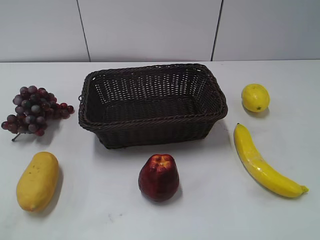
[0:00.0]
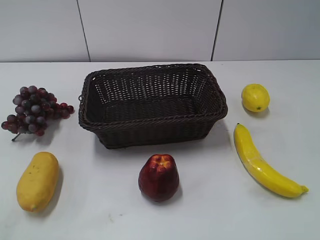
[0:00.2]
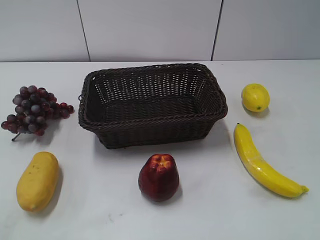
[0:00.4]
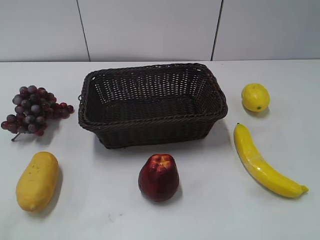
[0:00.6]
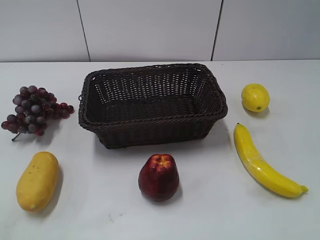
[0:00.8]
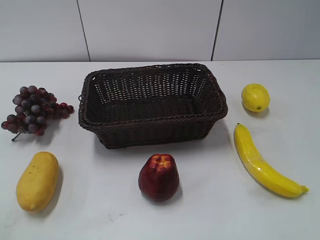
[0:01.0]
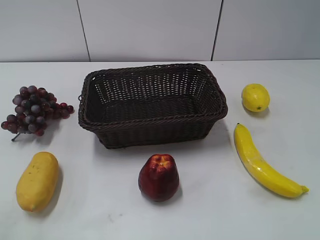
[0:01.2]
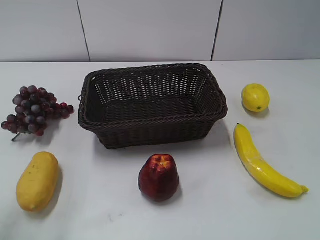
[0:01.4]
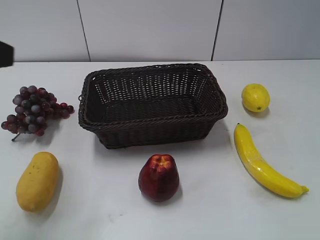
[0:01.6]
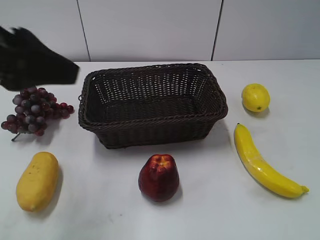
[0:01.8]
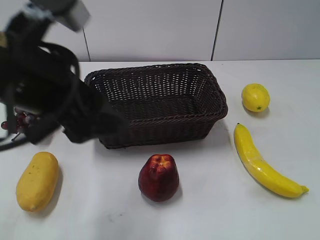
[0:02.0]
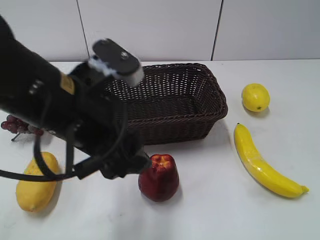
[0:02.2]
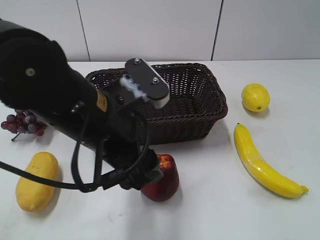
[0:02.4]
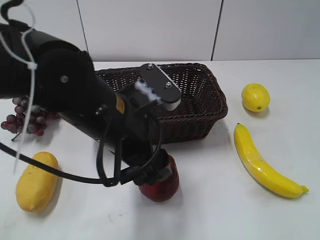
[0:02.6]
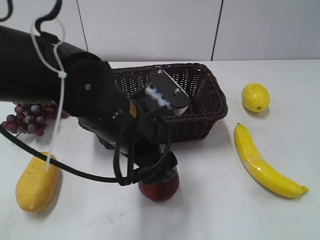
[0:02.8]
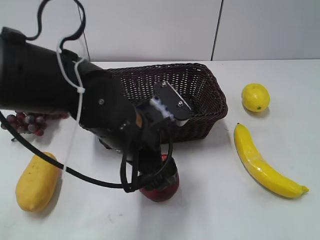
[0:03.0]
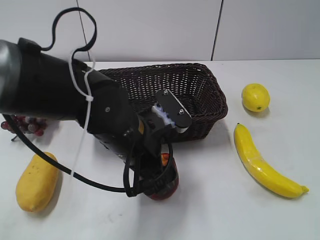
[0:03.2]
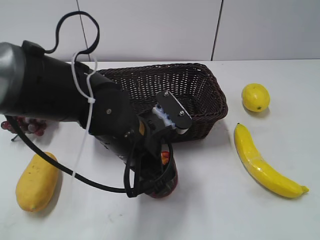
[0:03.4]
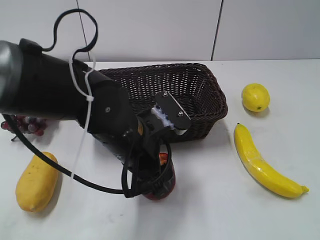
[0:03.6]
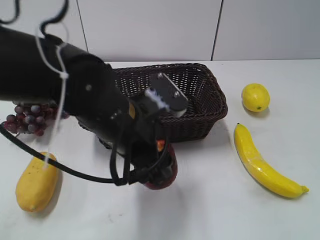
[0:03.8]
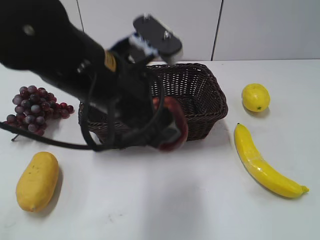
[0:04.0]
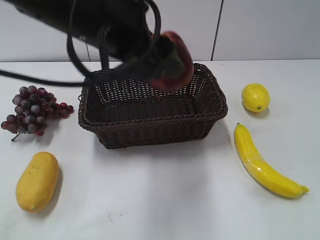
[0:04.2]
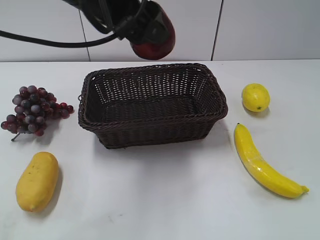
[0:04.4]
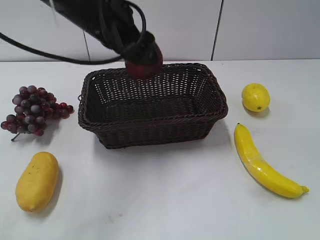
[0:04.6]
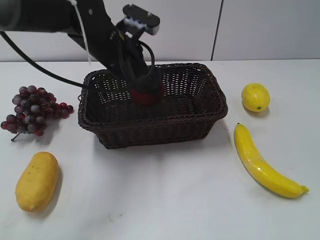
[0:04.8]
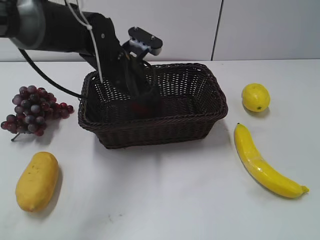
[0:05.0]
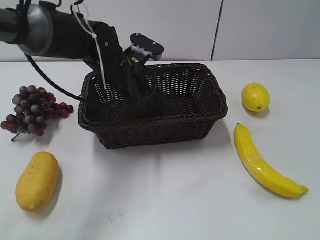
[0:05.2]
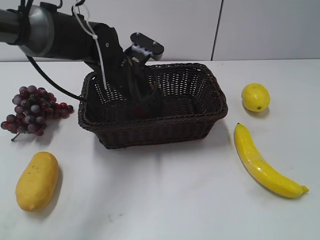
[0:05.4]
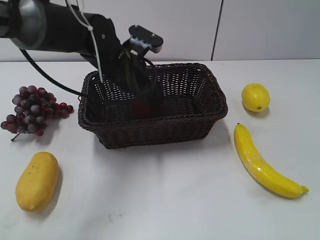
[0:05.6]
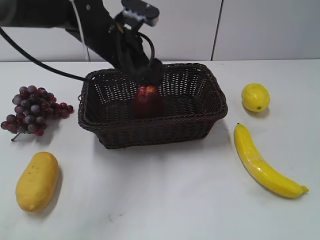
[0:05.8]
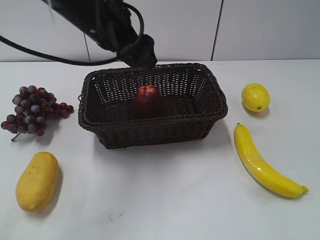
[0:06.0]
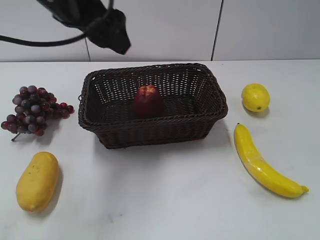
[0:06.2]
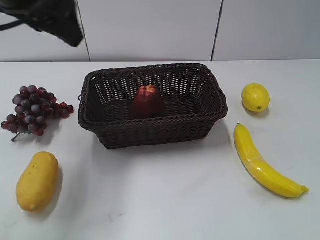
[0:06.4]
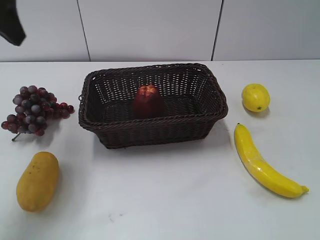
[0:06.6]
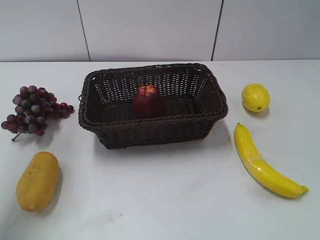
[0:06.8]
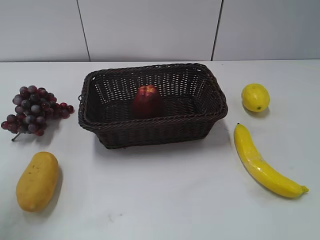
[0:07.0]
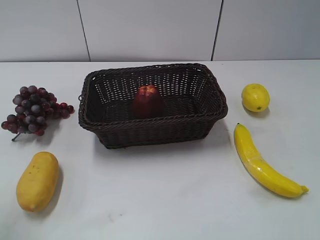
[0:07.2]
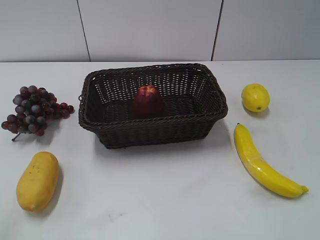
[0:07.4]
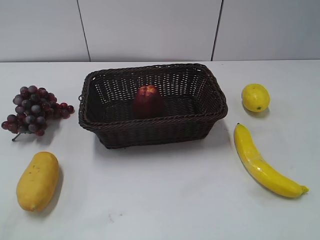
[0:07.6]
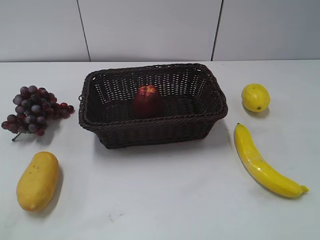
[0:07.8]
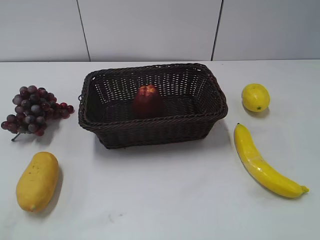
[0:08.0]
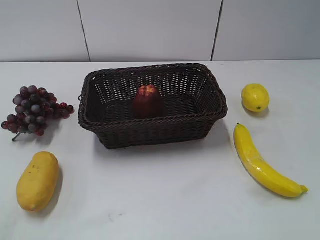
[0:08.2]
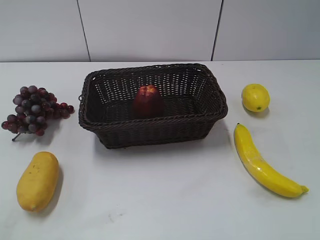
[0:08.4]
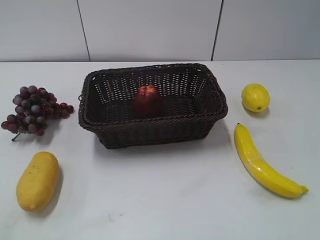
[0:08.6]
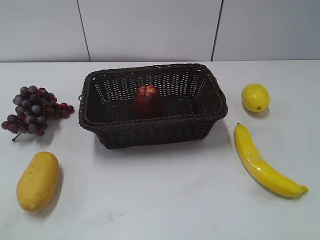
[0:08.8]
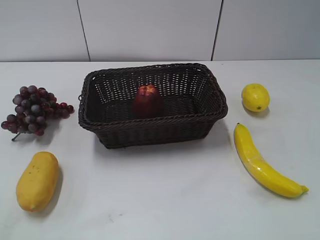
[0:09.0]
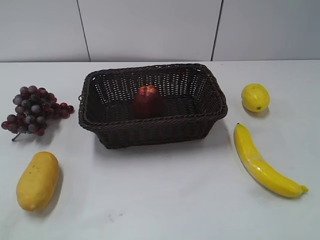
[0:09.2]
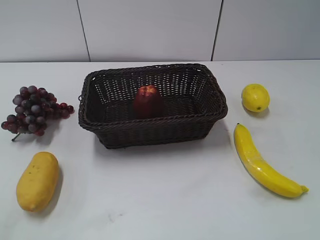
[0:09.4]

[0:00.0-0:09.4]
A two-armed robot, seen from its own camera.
Step, 0:01.6 to 0:03.4: Grasp the apple with left gripper.
Step, 0:03.6 to 0:05.4: Place the apple in the basket with left gripper.
0:01.6 to 0:03.2: The left gripper is displaced to the right and downward by about 30 cm, and opens its fingers.
0:03.2 to 0:04.8: The left gripper is displaced forward by approximately 15 cm, travels upward and back again, about 20 cm each way, and closes up.
0:04.8 to 0:06.2: The left gripper shifts about 15 cm upward, to the left and backward, and opens its fingers.
0:06.2 to 0:07.8: The left gripper goes roughly 35 cm backward and to the left, and closes its fingers.

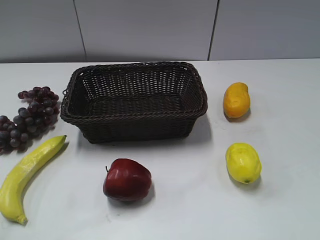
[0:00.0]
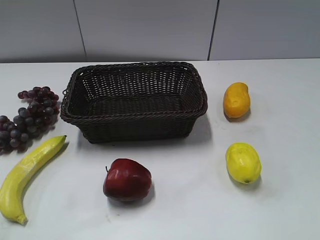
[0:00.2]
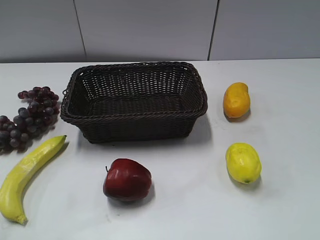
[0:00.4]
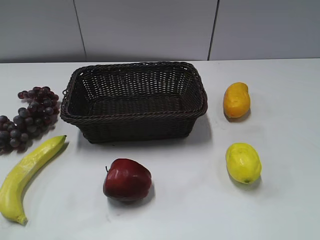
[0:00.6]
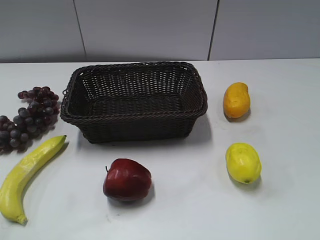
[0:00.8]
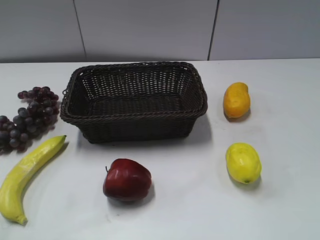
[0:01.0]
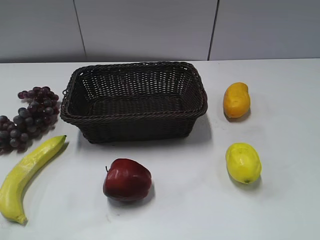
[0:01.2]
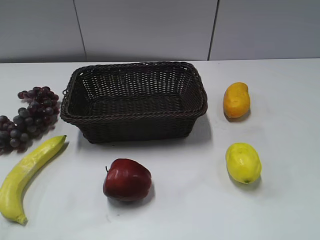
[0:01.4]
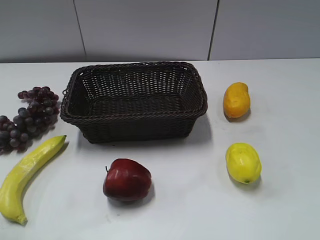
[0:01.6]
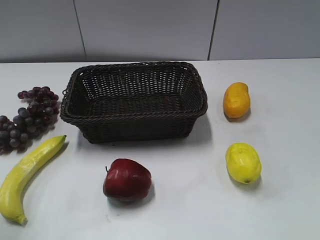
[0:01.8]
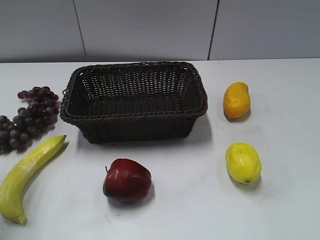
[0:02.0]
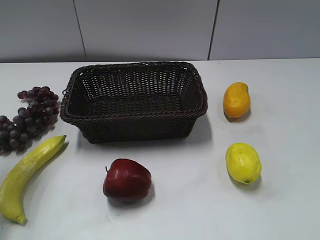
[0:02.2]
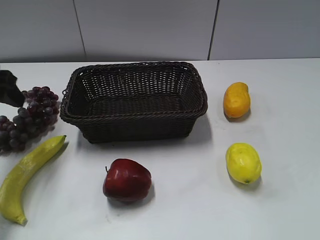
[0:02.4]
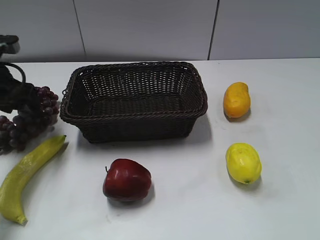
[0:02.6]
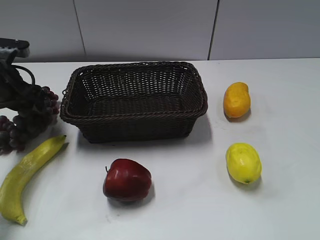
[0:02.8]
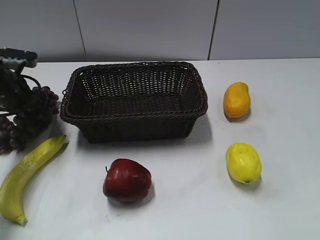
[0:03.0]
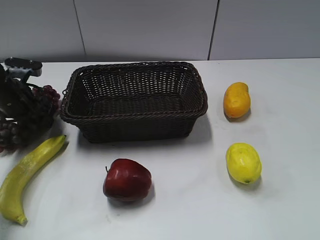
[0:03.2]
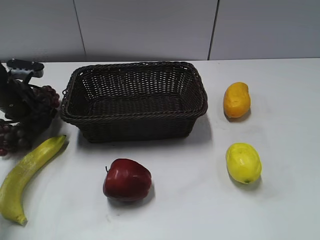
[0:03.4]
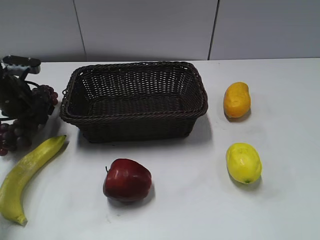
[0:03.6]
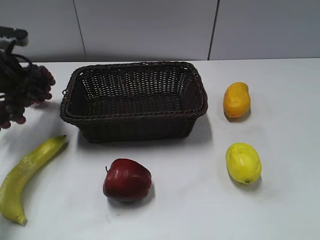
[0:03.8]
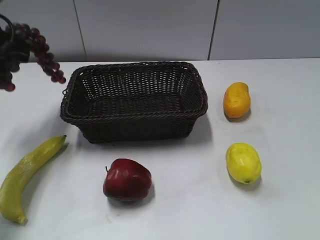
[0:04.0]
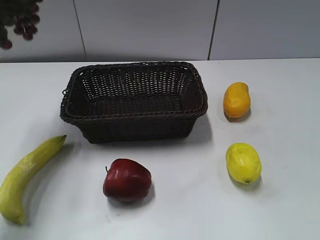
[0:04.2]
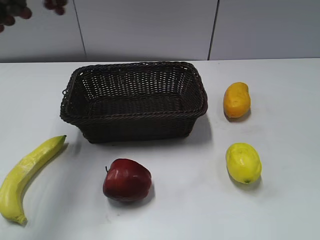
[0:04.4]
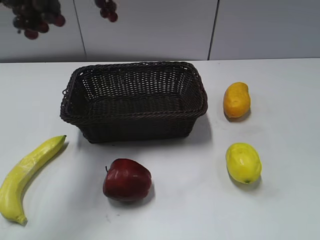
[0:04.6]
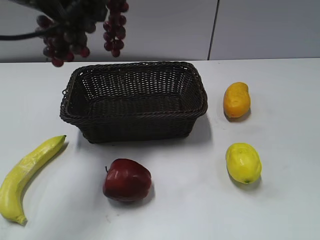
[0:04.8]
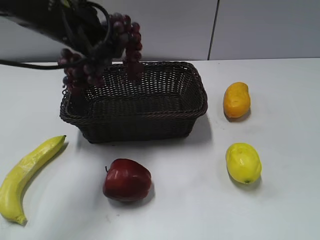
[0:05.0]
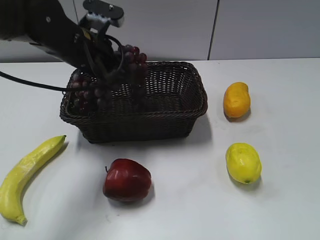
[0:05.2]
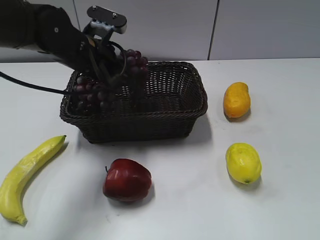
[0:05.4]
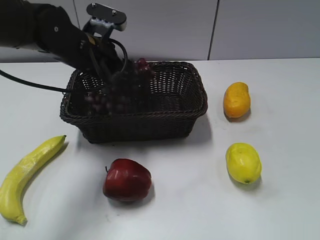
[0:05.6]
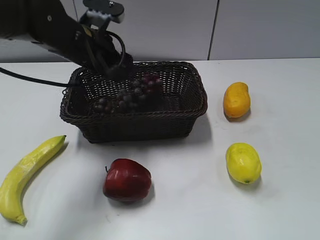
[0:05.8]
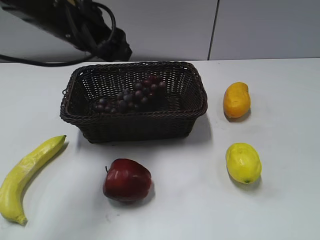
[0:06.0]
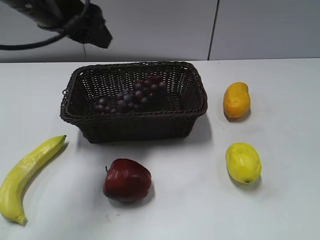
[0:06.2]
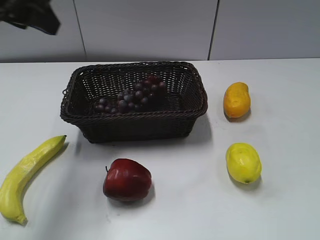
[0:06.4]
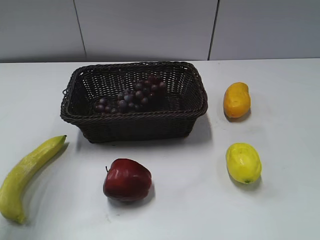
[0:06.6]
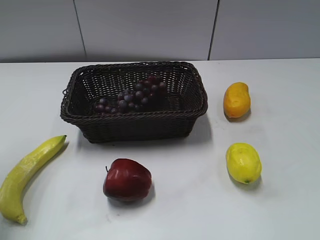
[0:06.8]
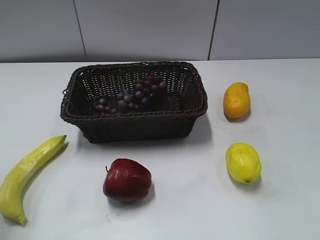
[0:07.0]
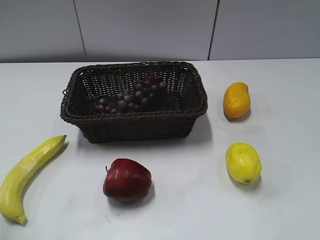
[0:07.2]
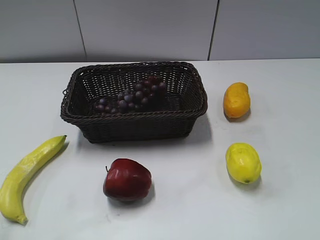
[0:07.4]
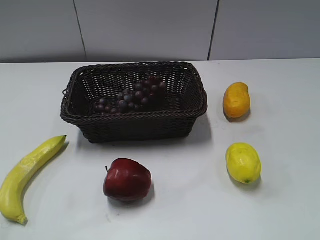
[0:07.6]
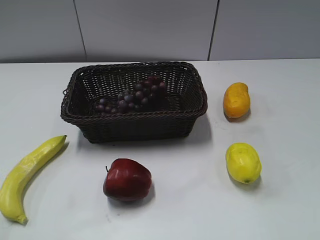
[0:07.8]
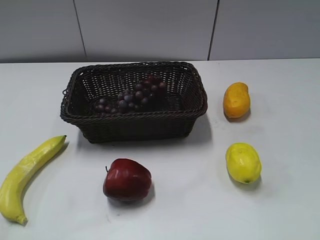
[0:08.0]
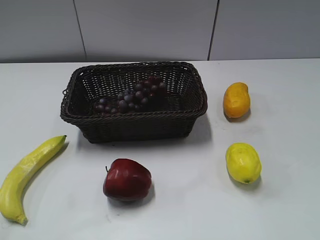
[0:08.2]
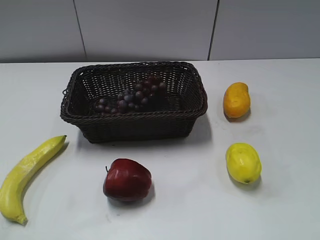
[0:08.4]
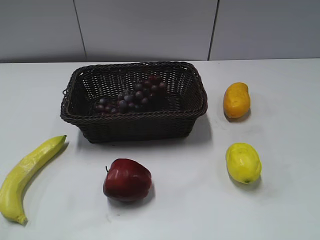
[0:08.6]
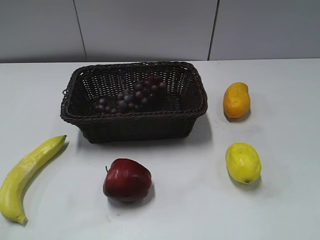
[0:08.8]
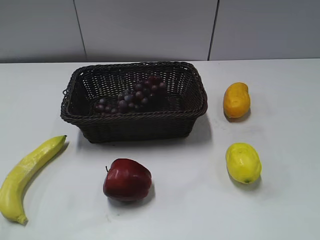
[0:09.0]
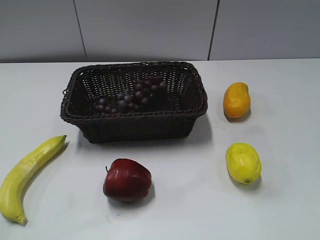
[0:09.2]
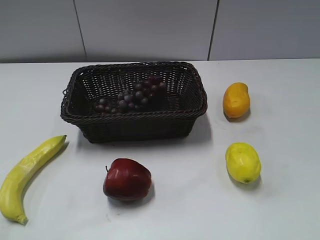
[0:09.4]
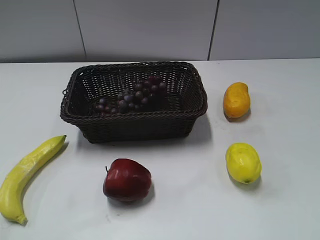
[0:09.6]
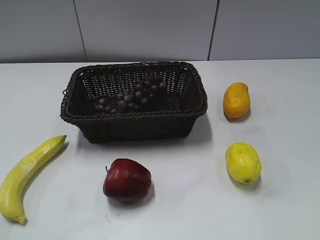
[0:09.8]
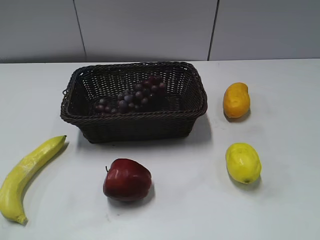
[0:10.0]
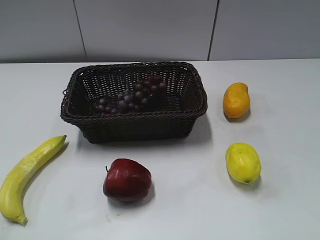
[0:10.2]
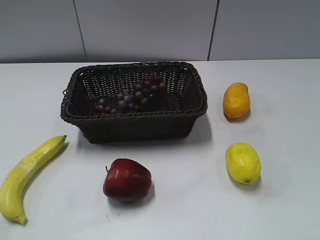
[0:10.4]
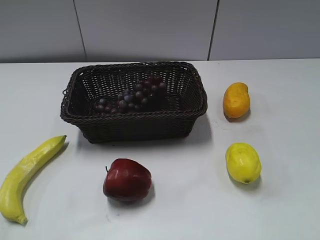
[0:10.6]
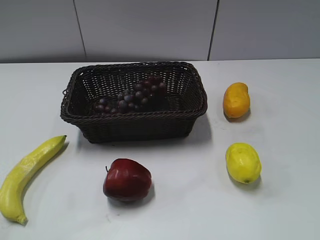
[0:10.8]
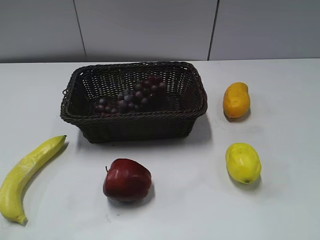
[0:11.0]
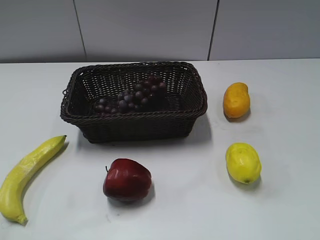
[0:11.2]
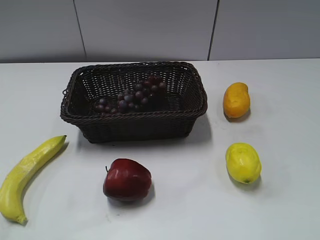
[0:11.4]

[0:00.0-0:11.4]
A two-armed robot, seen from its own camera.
Step, 0:02.2 to 0:03.8: Grasp the grape with left gripper.
Step, 0:04.0 to 0:06.0: Place the grape in the basket with left gripper.
0:01.4 to 0:02.8: The left gripper goes roughly 35 cm forward.
0:02.8 to 0:04.2: The left gripper travels upward by approximately 20 cm, and closes.
0:04.2 to 0:05.6: The left gripper heads to the right and downward, covering roughly 20 cm, and opens.
0:05.6 to 0:07.2: The left gripper moves backward, to the left and upward, some 35 cm.
0:08.6 to 0:11.4: The two grippers keep their place.

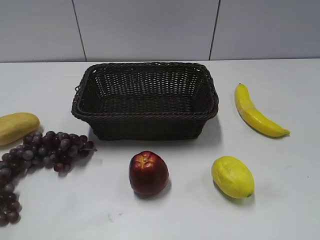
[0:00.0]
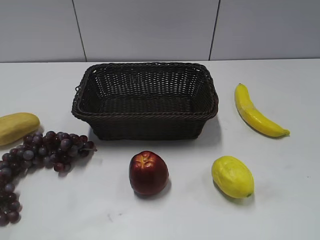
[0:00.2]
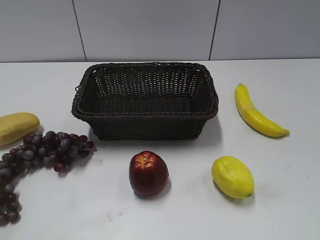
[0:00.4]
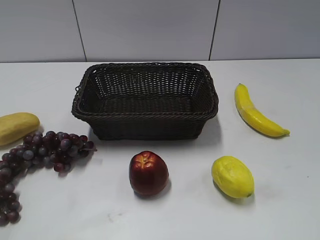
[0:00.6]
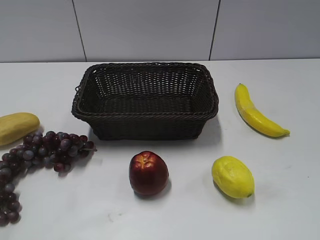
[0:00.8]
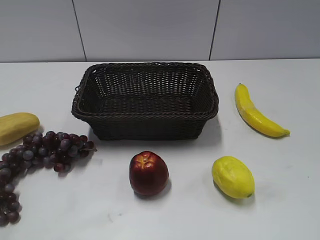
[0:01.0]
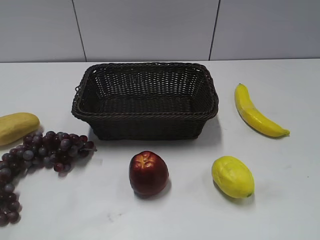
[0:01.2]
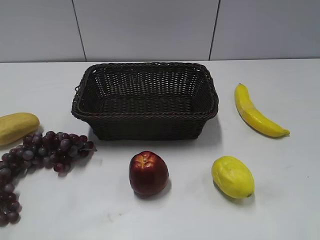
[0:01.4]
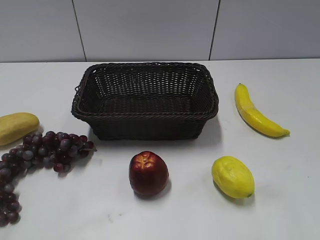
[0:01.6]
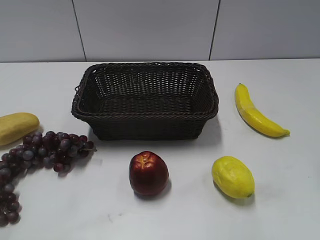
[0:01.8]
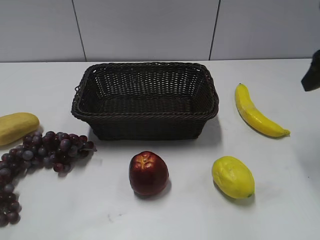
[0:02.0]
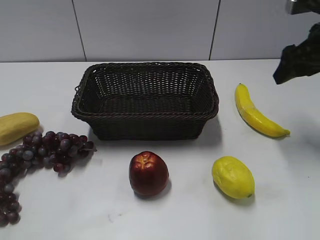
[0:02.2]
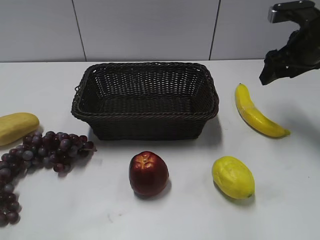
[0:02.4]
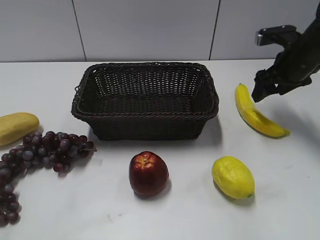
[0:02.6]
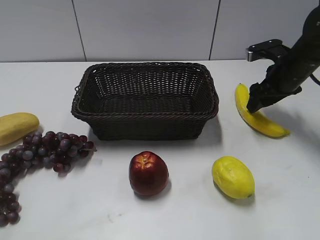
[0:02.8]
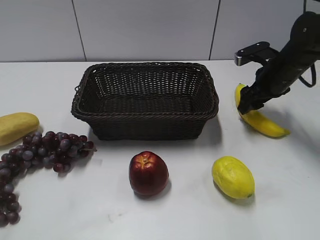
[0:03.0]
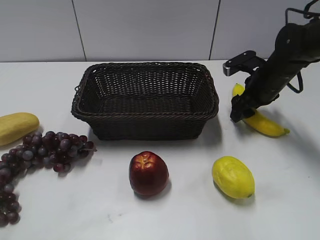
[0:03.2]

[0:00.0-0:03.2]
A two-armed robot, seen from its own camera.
0:01.6 to 0:03.2: The right gripper travels forward and downward by roughly 35 cm.
